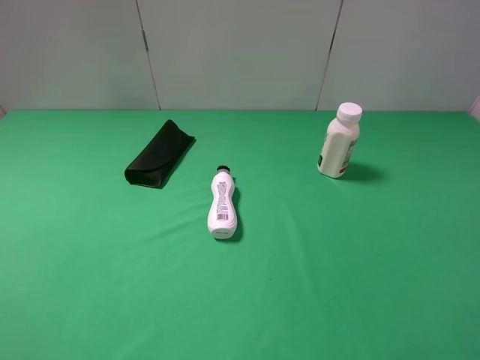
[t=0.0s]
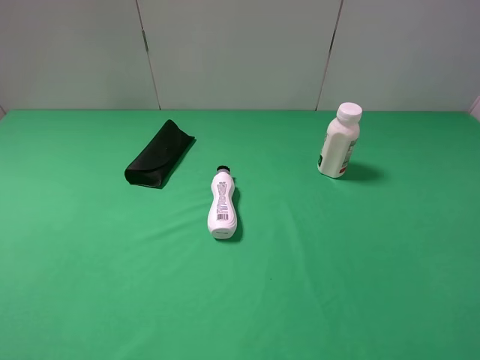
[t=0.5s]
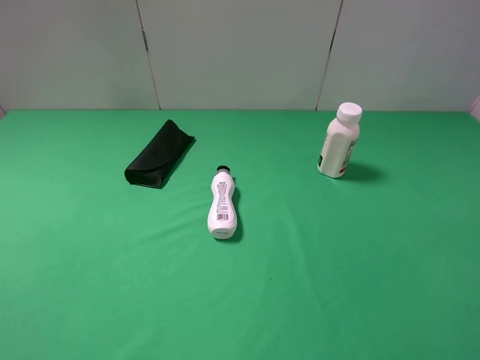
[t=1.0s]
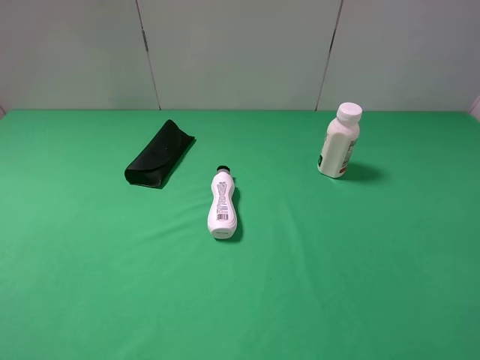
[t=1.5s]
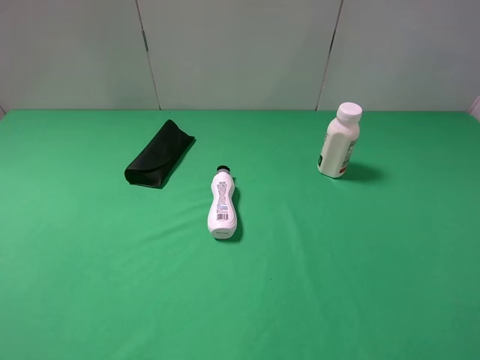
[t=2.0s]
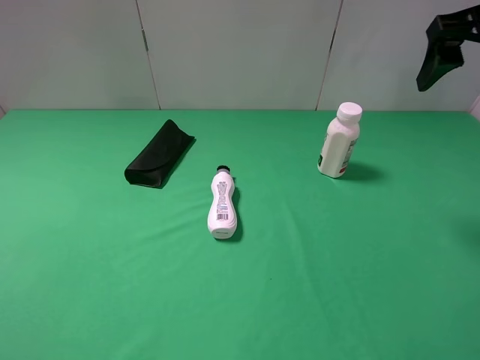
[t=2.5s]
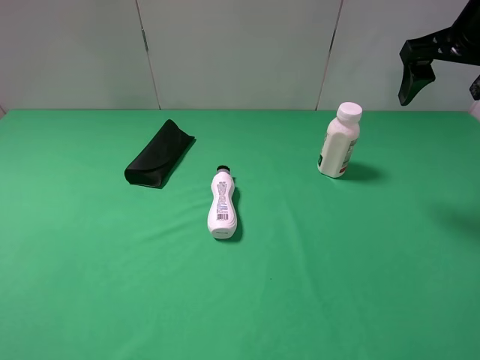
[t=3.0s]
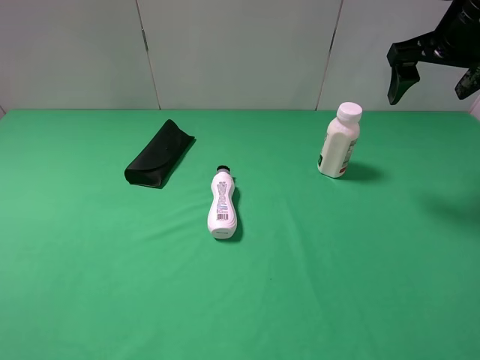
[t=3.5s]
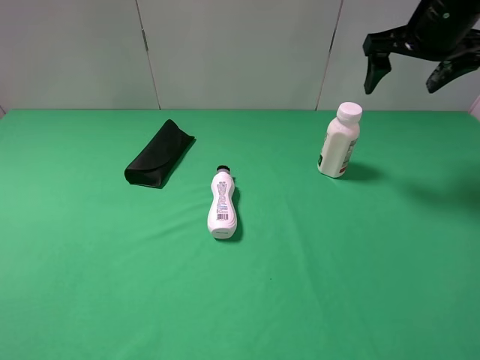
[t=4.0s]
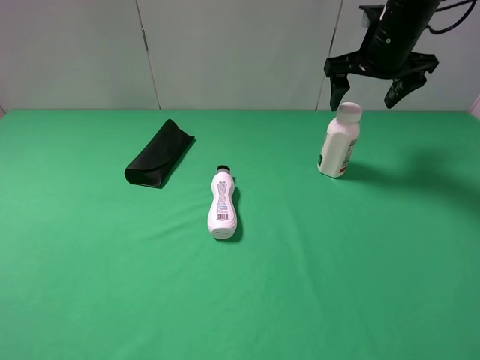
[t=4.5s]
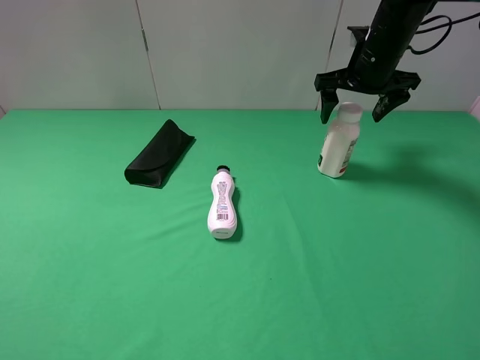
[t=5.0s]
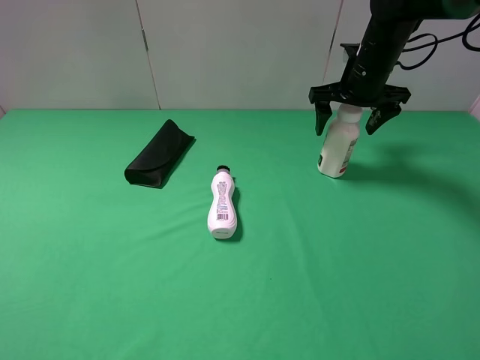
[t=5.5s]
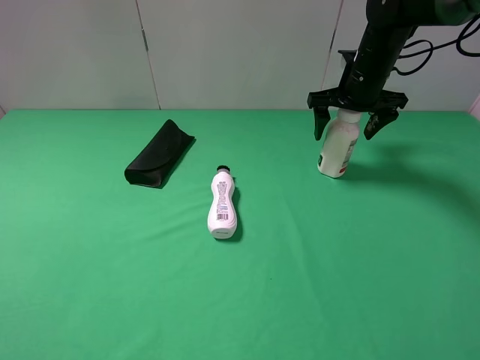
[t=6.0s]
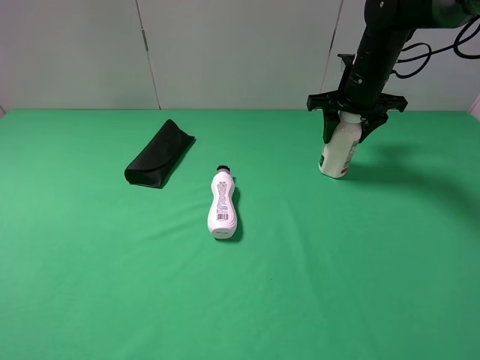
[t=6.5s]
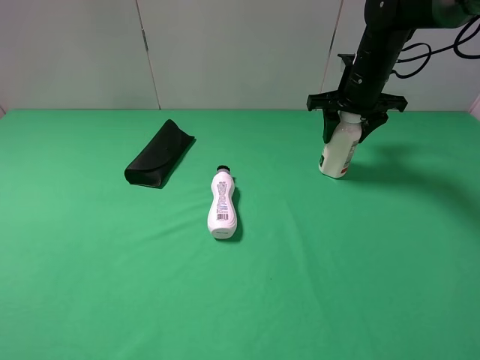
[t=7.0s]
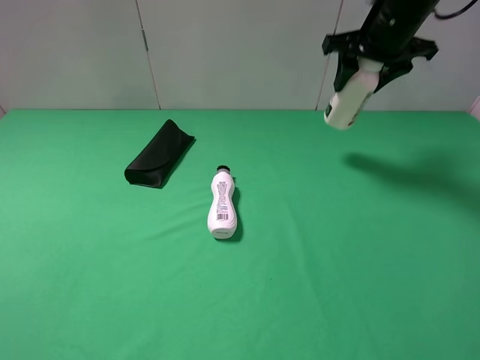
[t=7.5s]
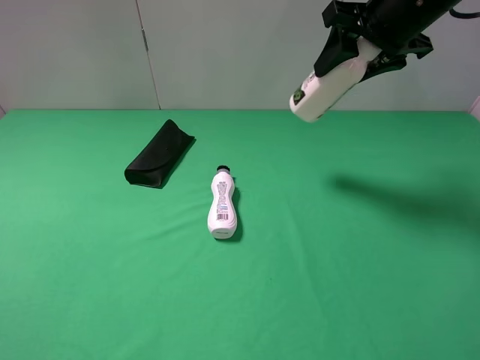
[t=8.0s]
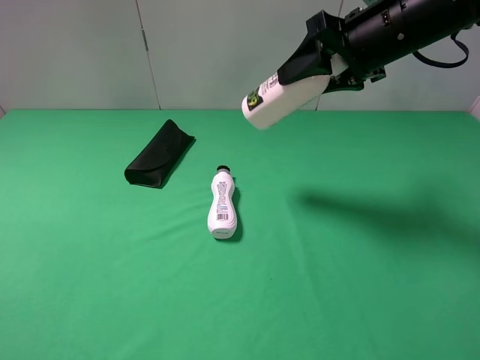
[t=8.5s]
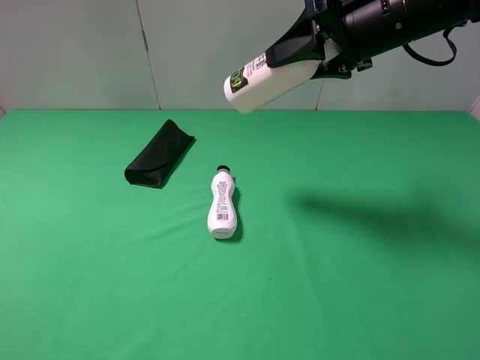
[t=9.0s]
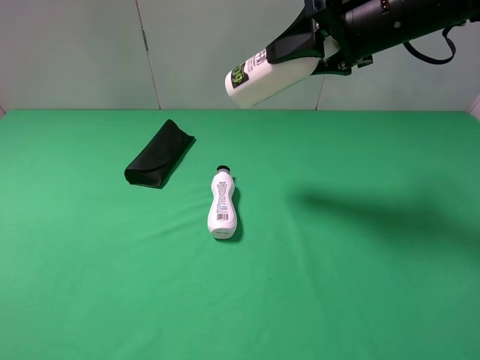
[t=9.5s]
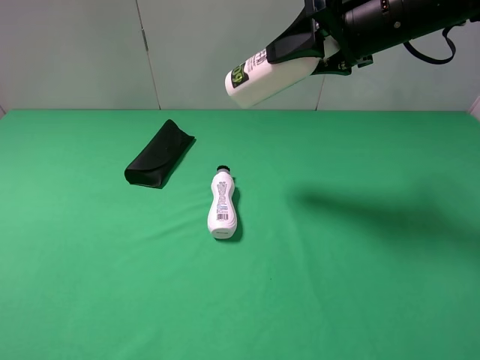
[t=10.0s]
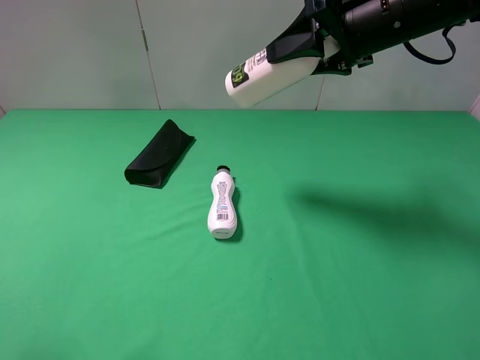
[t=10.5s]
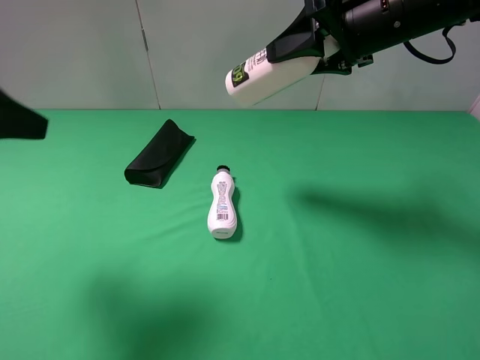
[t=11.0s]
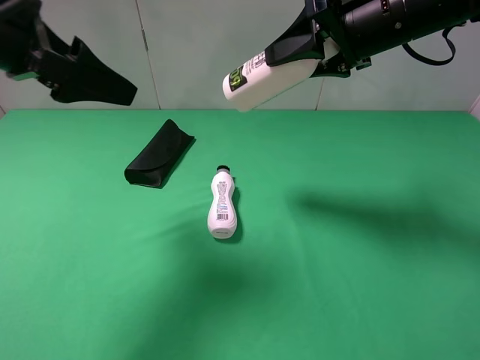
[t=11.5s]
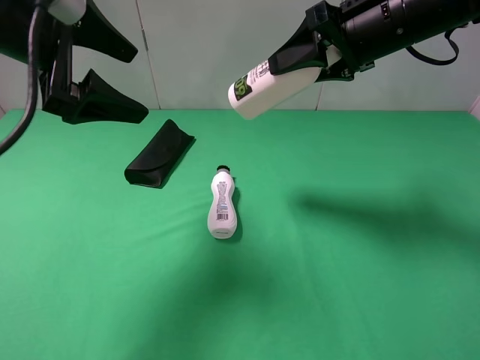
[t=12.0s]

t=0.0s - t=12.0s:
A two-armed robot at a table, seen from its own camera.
Task of the whole recording: use the right gripper to pick up the item and transfer it from the right gripper to the left gripper.
Step, t=0.0s - t=6.0s: Use the right gripper to grab the milk on the right side of the table.
t=2.0s - t=4.0s: The right gripper travels forward by about 25 cm.
t=4.0s - t=6.0s: The right gripper travels downward and forward by some 10 cm.
t=6.0s - t=8.0s: The right gripper shifts some 15 cm upward and backward, and closes up.
t=10.0s - t=12.0s: The left gripper heads forward, covering roughly 30 cm.

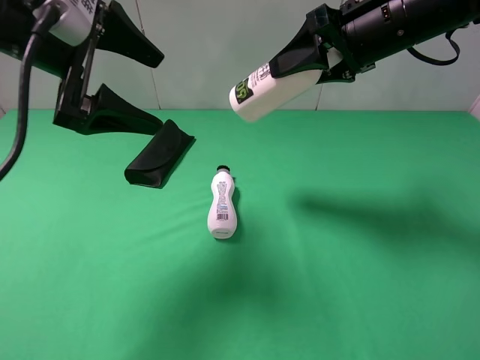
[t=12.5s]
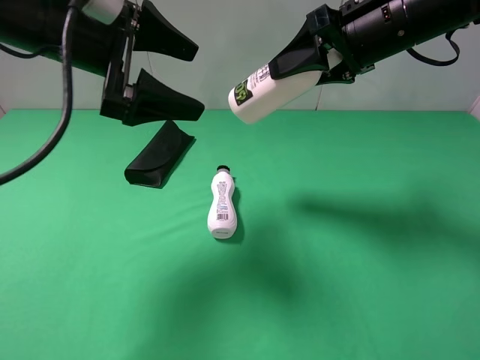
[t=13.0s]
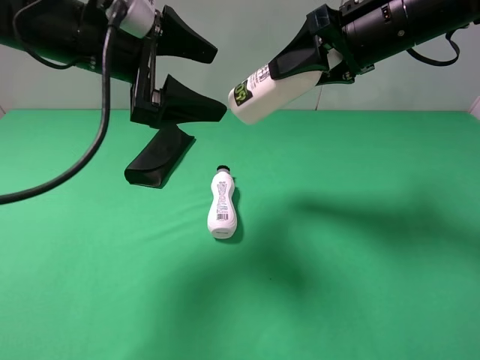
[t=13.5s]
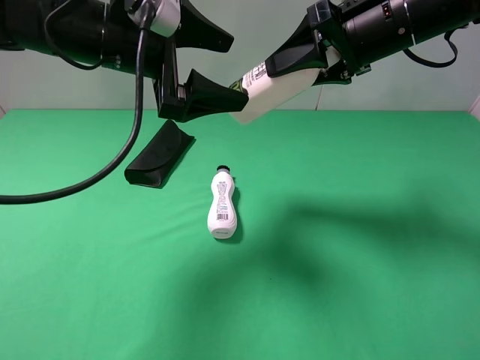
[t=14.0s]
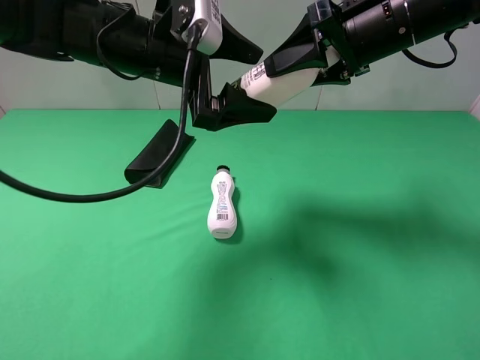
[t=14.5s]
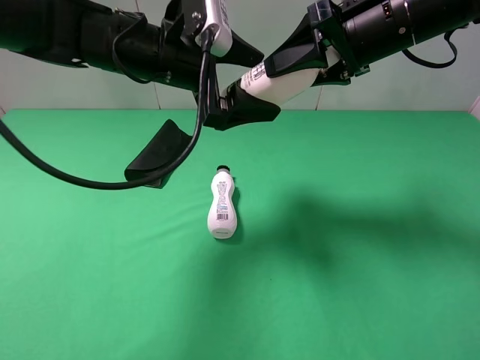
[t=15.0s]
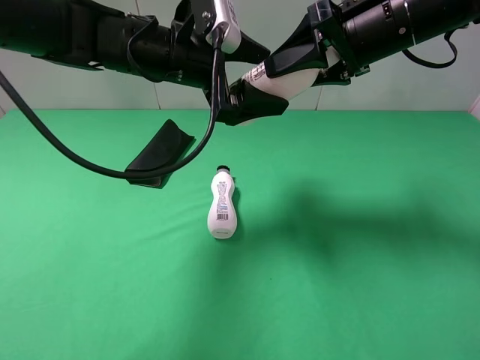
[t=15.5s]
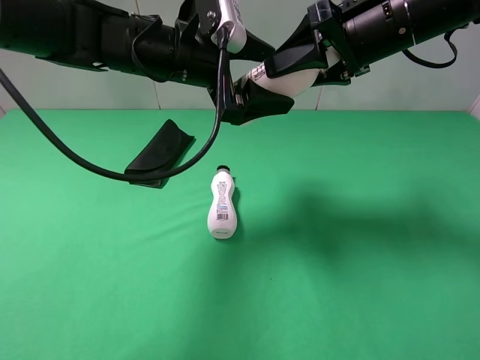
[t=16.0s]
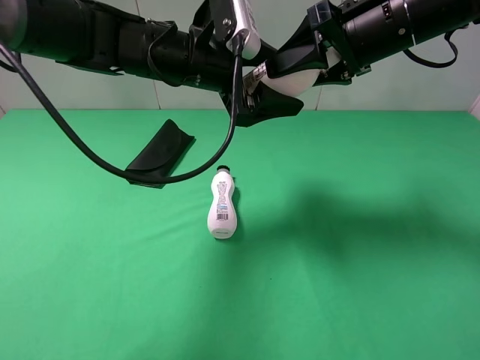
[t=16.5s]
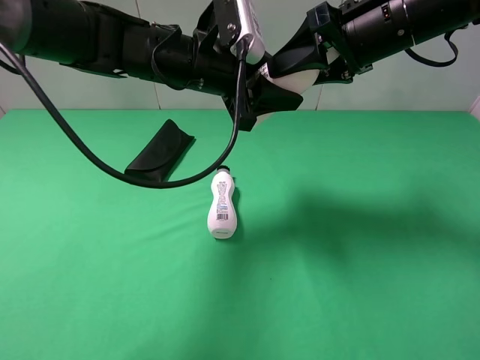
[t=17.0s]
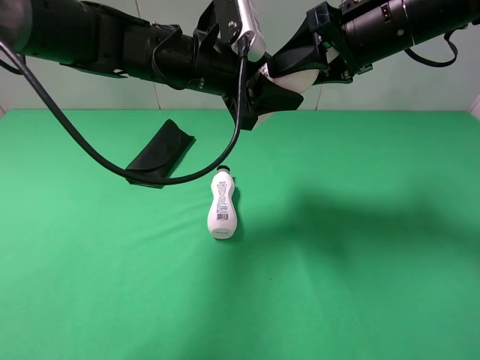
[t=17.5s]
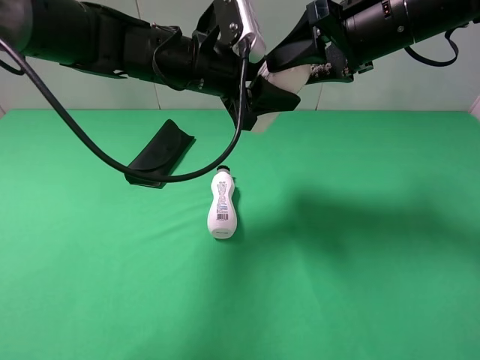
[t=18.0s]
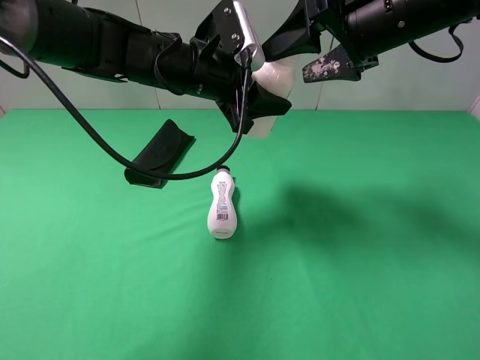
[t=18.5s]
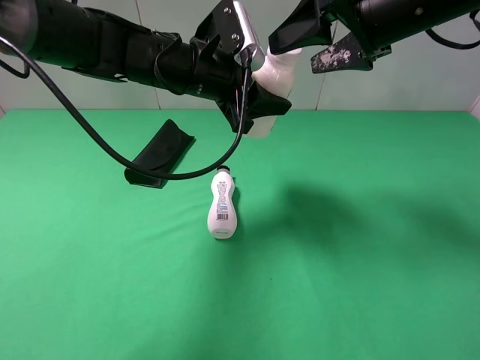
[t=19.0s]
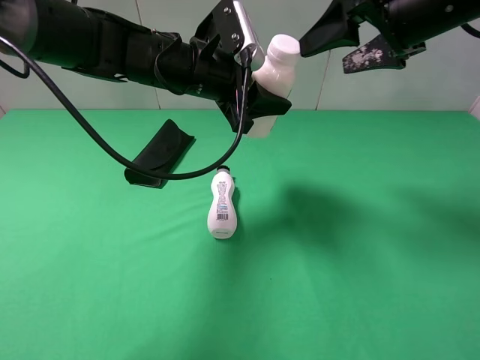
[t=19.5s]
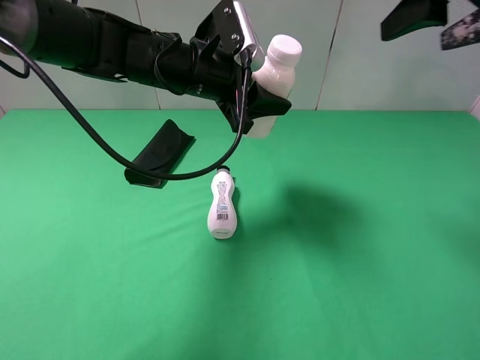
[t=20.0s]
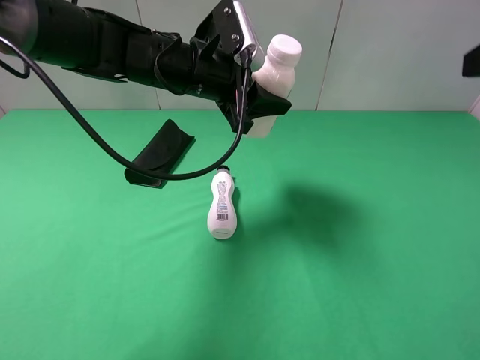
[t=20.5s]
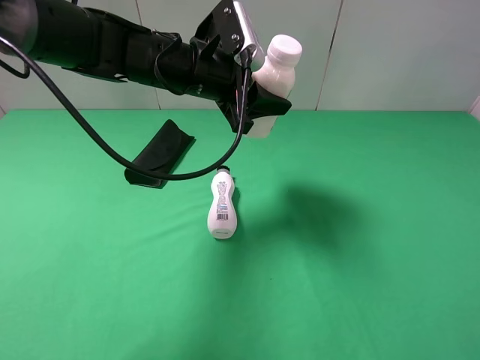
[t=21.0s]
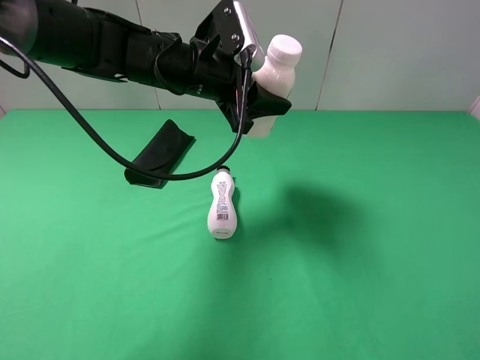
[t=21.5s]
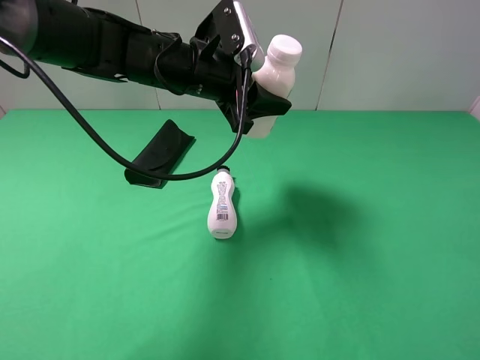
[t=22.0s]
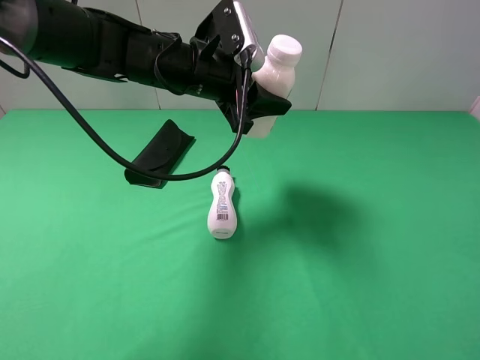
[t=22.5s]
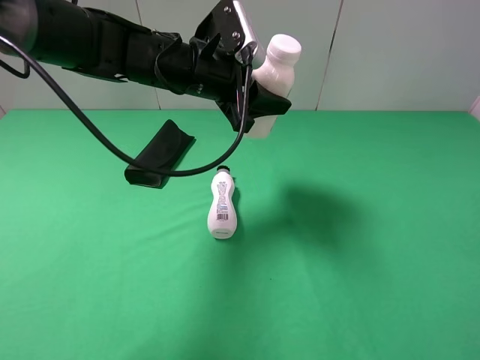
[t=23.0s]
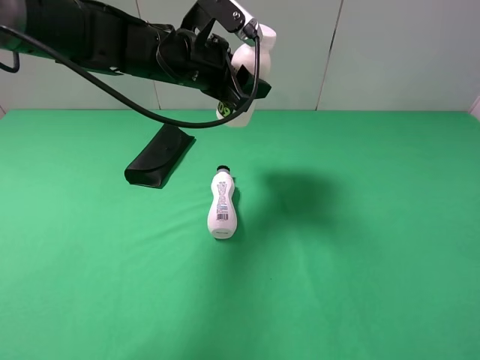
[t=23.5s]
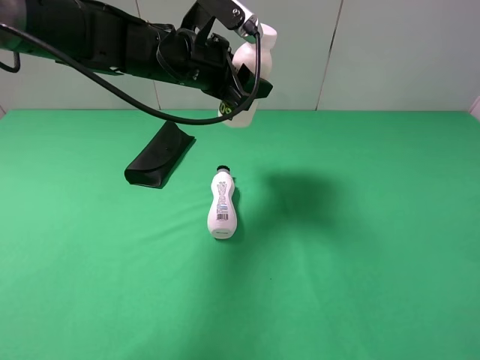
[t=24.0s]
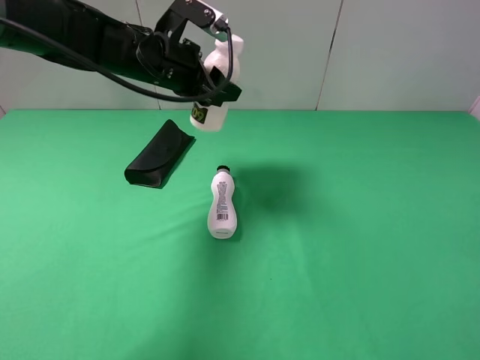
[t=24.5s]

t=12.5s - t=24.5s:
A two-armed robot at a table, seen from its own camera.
Task of the whole recording: use the right gripper to pick up the item and transfer it from the right gripper to the left gripper.
Step, t=12.5s - t=18.0s: Pass the milk to the left gripper.
t=12.5s - t=14.5s: The left gripper shifts about 10 cm to the right.
t=14.5s - t=16.5s: The grippers stay close to where they were, moving slightly.
t=16.5s - t=18.5s: The left gripper closes up. Meanwhile the right gripper opens.
t=18.5s - t=20.5s: The right gripper moves backward and to the right, roughly 20 cm.
t=22.5s - t=24.5s: The left gripper goes about 5 cm to the left.

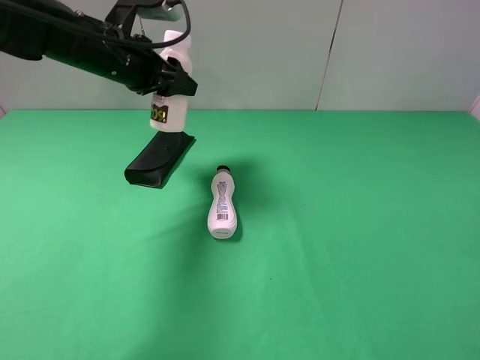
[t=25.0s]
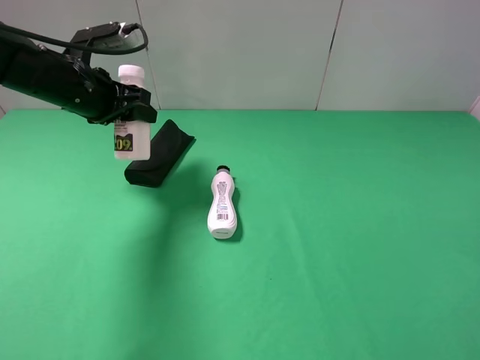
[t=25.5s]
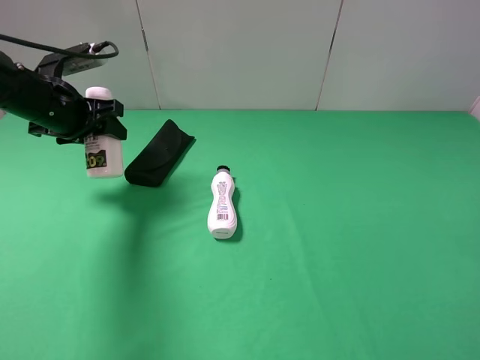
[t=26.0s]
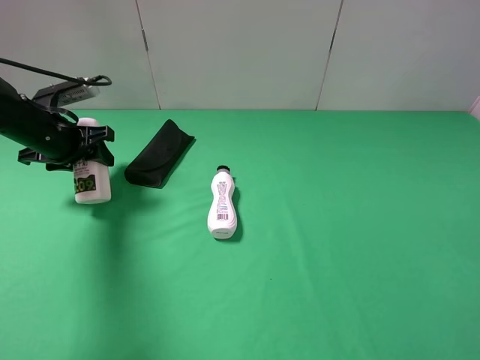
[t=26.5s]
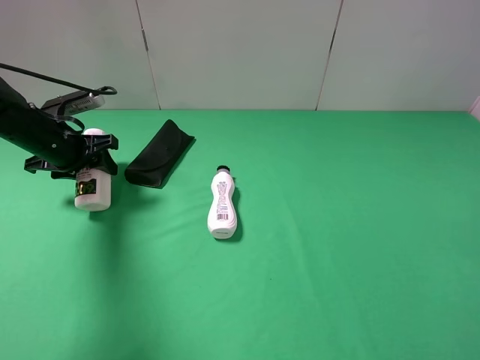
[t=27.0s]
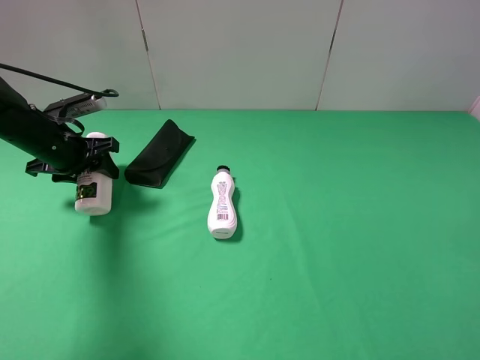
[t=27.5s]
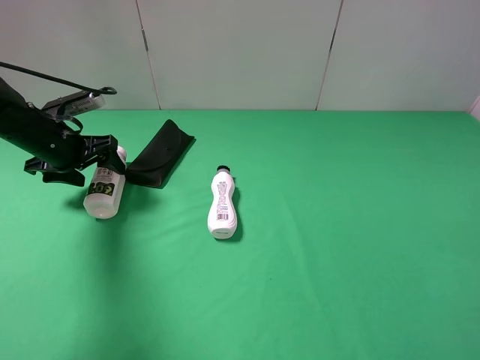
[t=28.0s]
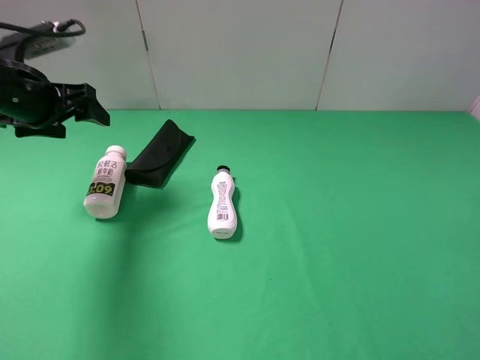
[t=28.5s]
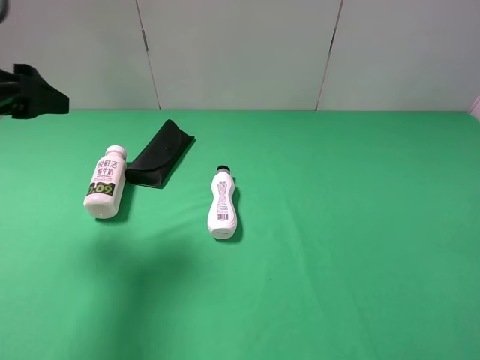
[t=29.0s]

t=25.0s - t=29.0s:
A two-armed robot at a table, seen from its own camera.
Task of the whole recording: use the right gripper to pick up the item and transfer it from the right gripper to the left gripper.
Step, t=25.0s - t=27.5s: The left gripper places milk on the left side of the table.
t=25.0s - t=27.0s: The left gripper moves to the left and downward, approximately 15 cm.
t=27.0s - t=29.0s: The left gripper heads upward and backward, covering some 20 cm, and opens up.
